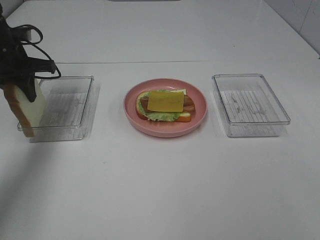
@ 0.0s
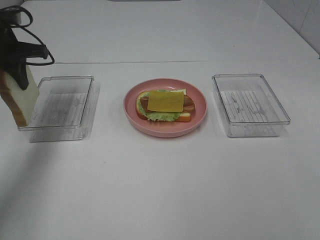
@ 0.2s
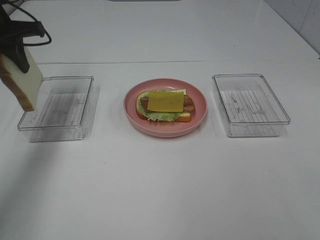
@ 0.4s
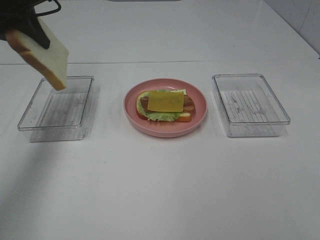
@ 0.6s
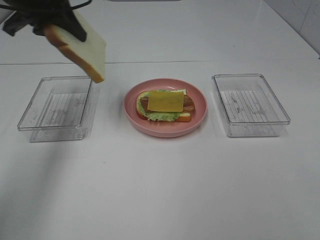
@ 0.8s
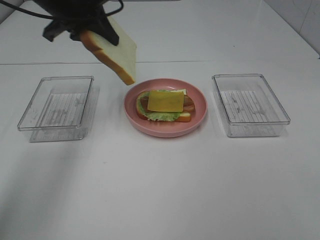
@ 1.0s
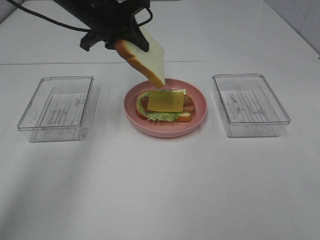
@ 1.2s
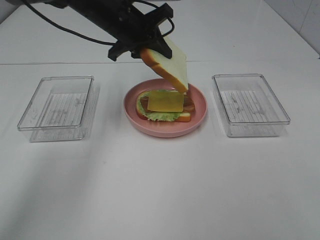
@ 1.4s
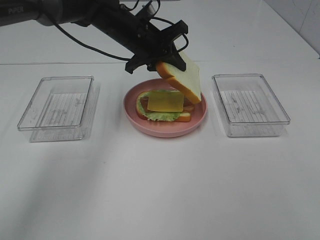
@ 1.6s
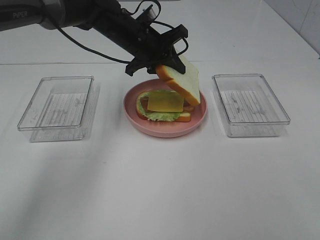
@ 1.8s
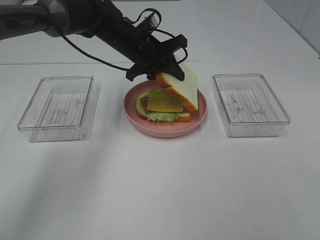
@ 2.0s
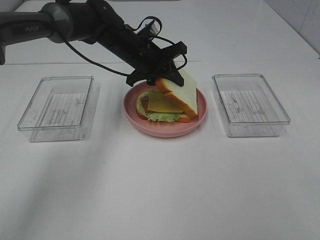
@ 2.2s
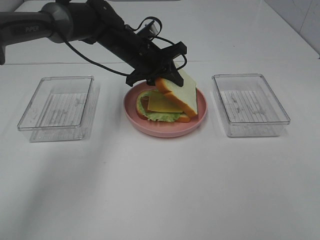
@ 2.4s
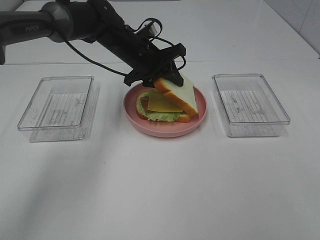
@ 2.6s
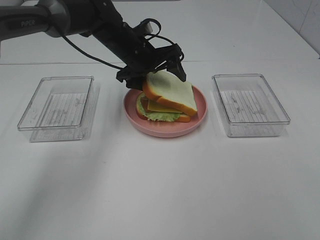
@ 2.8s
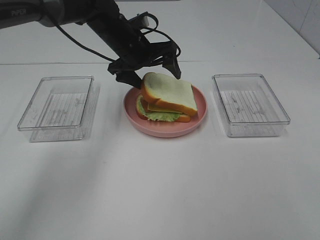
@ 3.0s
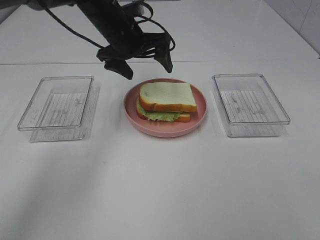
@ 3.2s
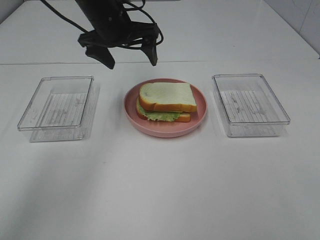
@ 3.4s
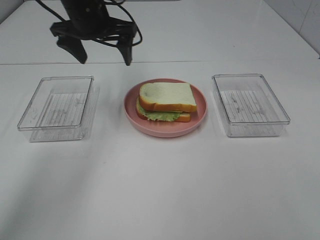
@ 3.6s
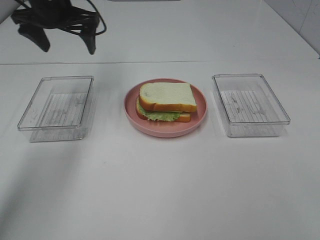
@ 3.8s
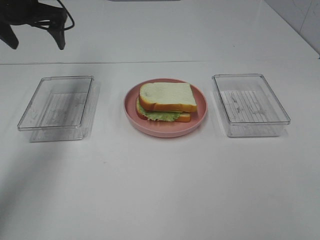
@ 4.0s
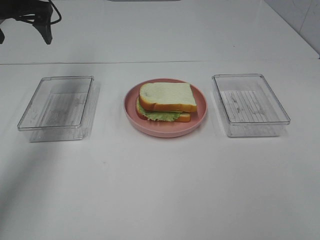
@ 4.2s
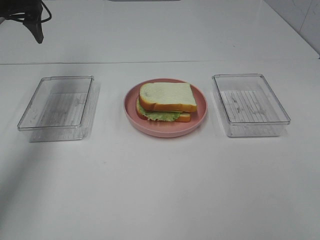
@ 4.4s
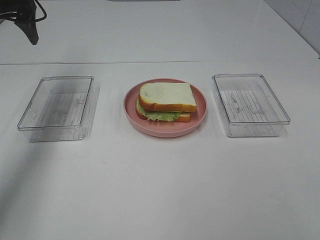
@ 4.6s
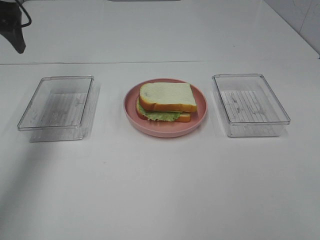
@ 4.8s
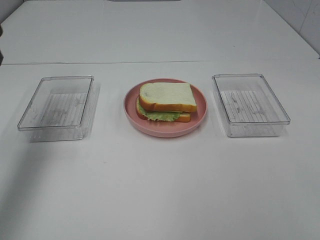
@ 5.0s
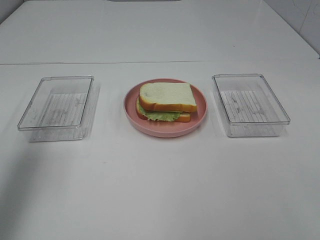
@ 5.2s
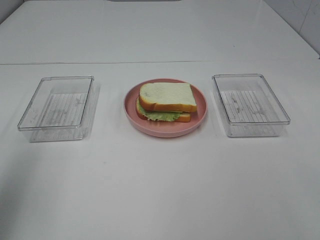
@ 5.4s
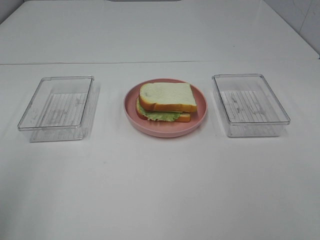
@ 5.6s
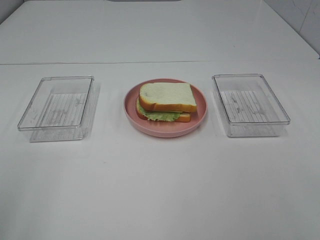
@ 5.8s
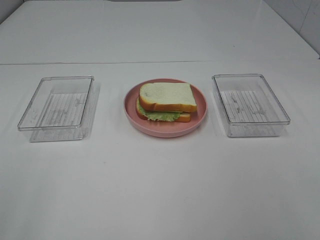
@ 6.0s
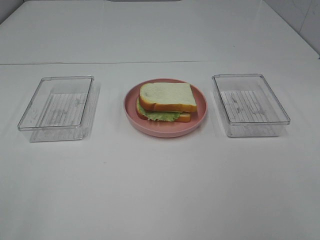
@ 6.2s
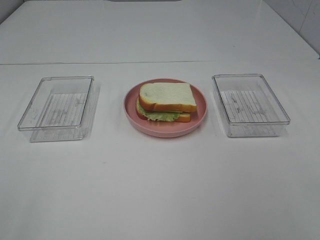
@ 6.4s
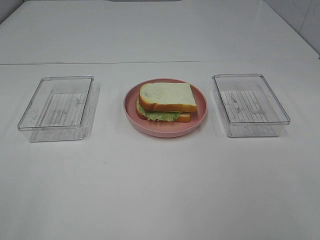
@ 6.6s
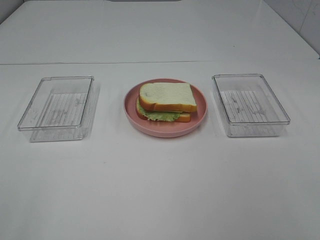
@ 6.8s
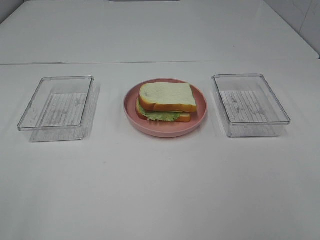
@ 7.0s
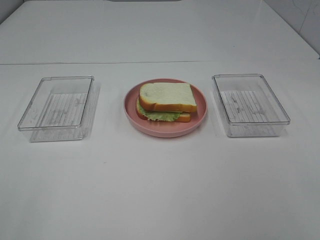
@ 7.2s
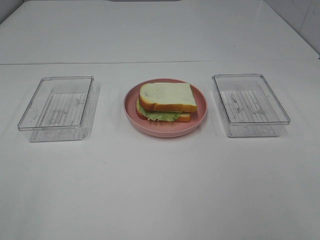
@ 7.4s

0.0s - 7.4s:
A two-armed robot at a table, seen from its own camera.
Task of the whole recording: Make sandwiches.
Step, 0.0s - 3.2s: Left hand:place bacon on bacon.
0.0s - 1.4s: The left gripper moves to the right, roughly 20 cm.
1.4s - 3.0s: The left gripper opens.
3.0s - 4.4s: The left gripper moves to the left and upward, approximately 25 cm.
4.4s - 6.0s: The left gripper moves backward, about 50 cm.

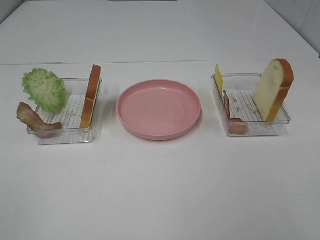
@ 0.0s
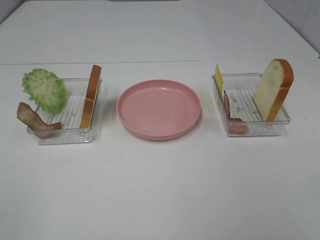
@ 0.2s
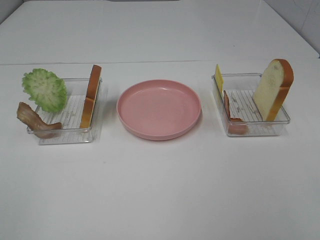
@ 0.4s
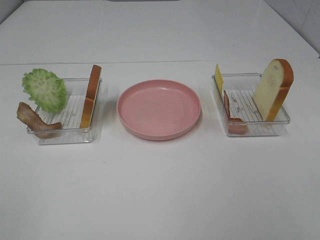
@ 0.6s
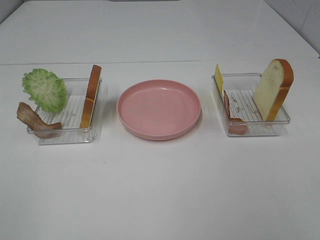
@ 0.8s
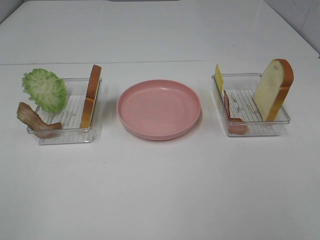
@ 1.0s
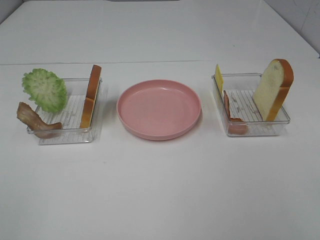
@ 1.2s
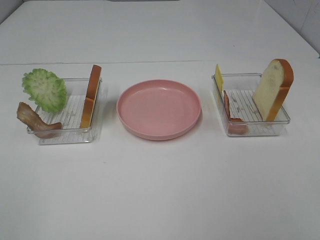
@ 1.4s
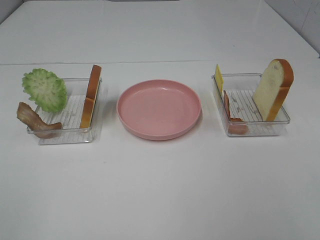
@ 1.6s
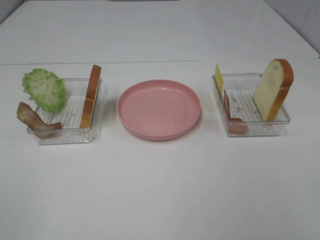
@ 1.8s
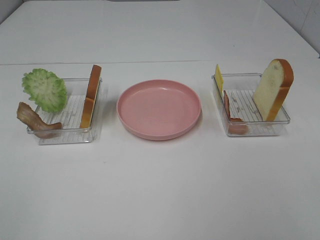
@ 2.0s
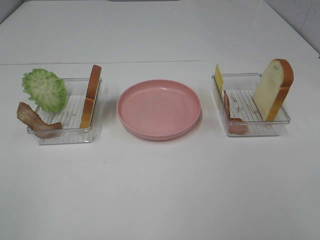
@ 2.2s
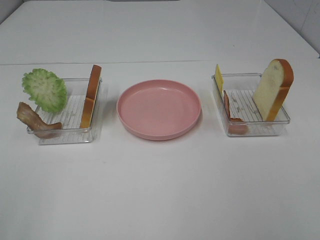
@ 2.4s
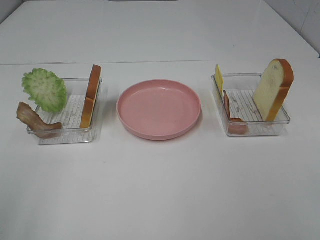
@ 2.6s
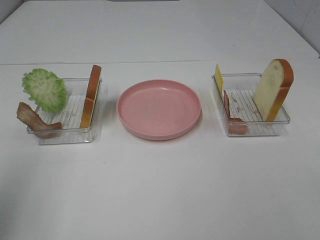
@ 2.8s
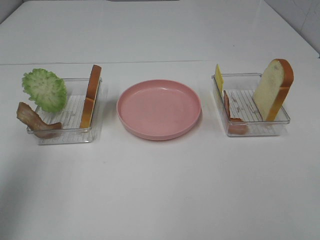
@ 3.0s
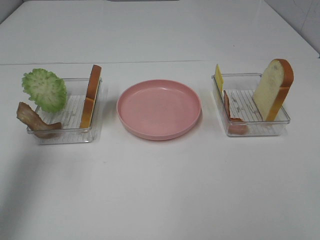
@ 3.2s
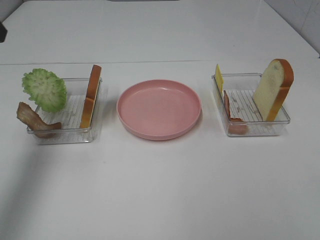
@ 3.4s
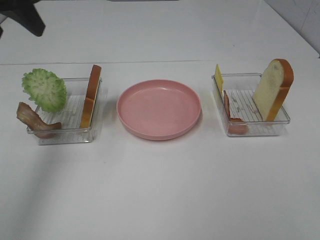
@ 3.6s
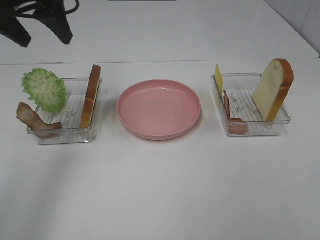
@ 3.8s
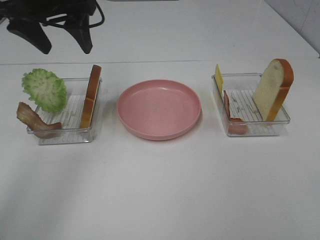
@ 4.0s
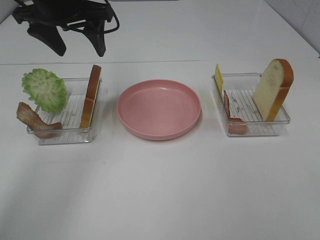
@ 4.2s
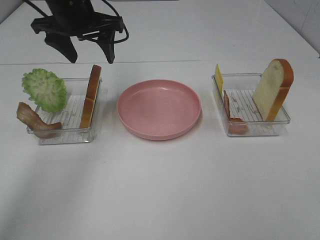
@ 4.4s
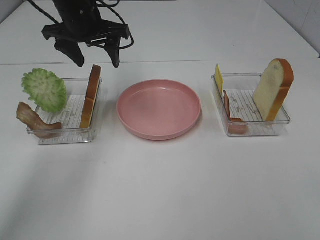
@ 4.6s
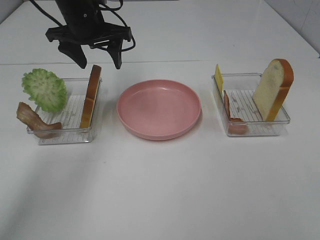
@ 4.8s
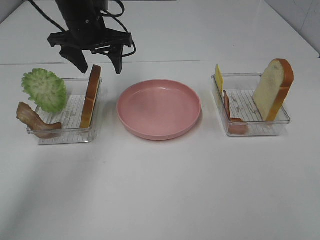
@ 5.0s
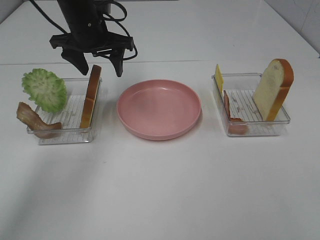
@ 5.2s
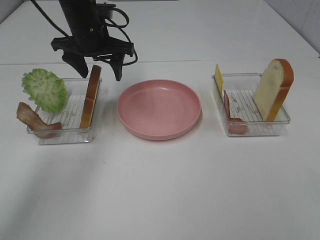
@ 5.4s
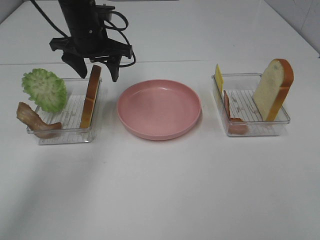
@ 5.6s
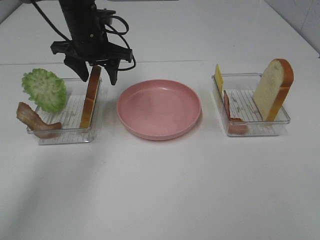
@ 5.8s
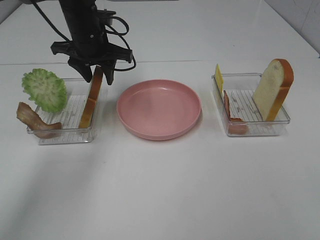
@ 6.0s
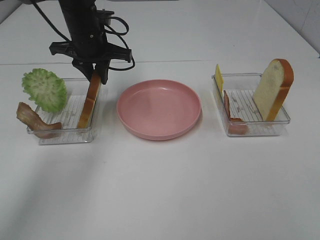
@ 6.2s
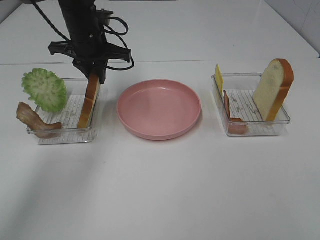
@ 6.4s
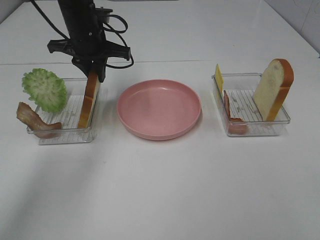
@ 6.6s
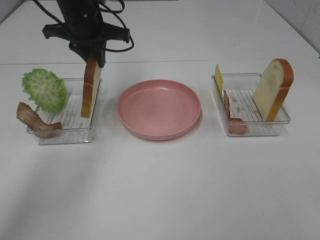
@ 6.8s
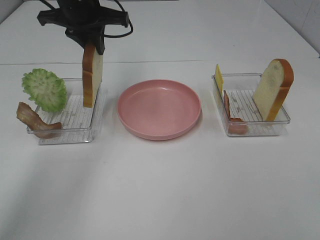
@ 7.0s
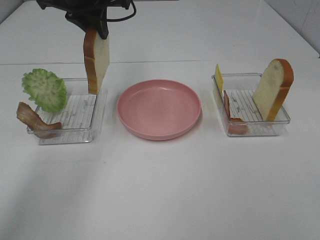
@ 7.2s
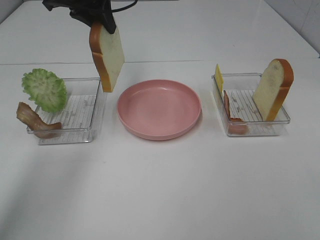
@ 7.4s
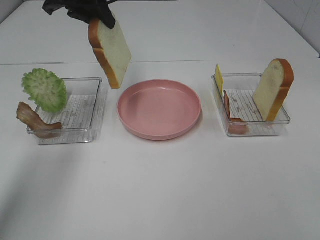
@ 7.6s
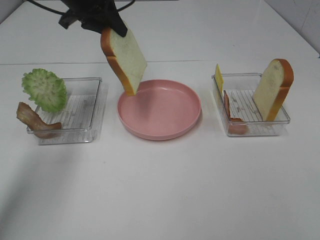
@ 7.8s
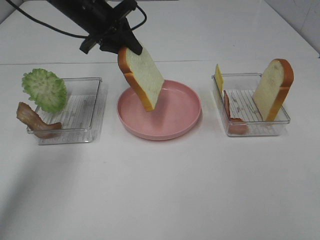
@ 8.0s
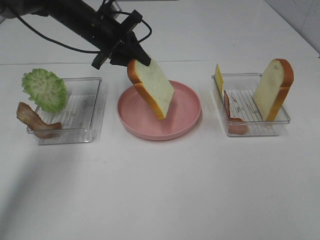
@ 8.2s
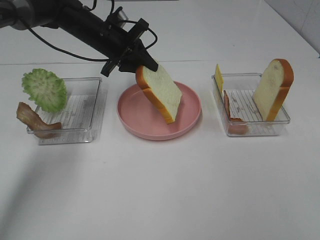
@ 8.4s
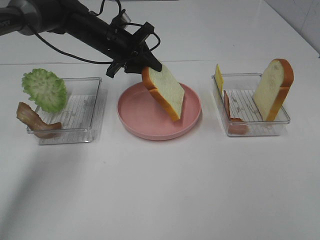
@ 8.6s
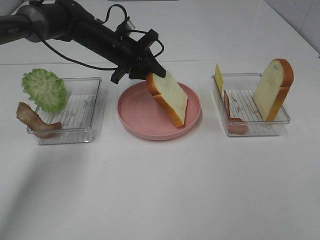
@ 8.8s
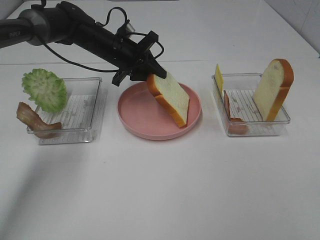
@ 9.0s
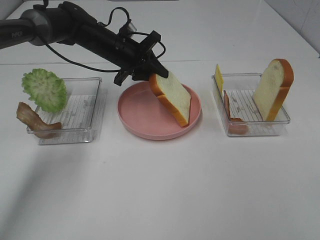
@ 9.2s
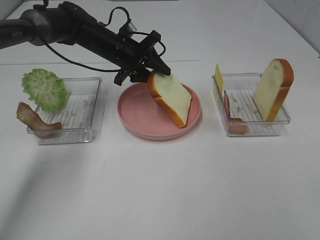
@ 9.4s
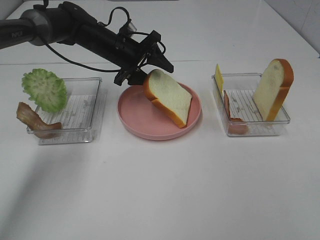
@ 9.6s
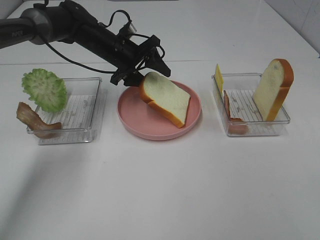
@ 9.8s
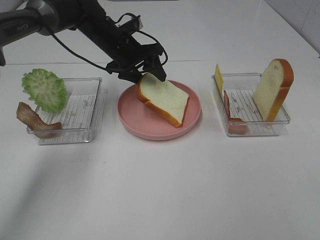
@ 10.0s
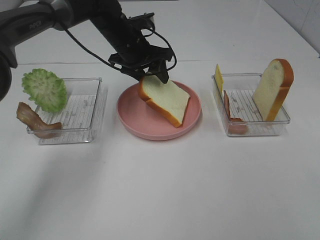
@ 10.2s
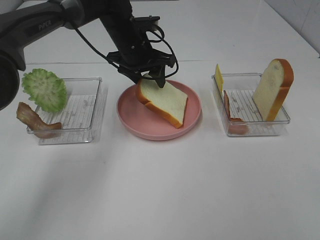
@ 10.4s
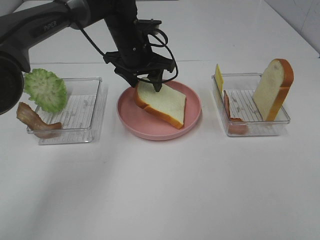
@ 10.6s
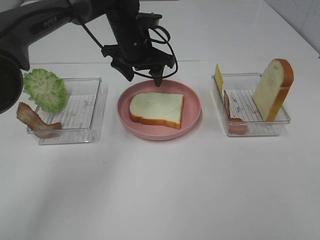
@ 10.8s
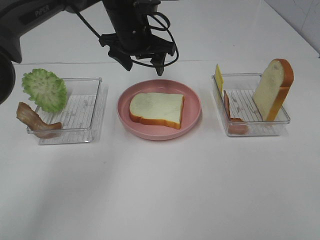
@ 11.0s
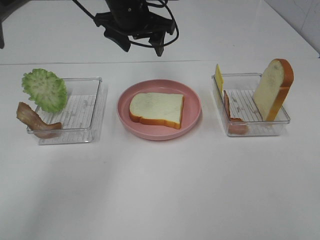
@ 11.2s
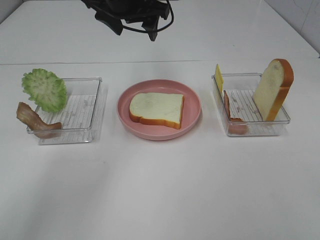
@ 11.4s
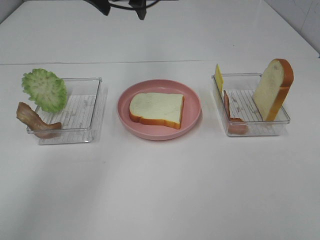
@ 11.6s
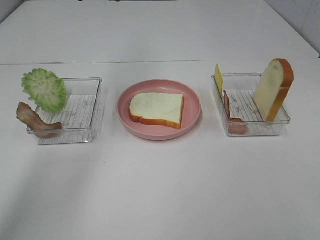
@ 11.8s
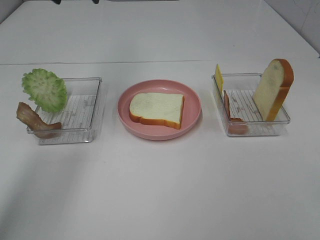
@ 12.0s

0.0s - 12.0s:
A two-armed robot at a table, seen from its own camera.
Task of the whole recording: Make sandwiches.
Step, 0.0s - 6.4s: Left hand:grab the bread slice.
Step, 6.6s - 10.8s: Left hand:place the bread slice on the plate.
0.0s - 1.6s: The two grippers keep their place.
1.6s - 3.0s: The left gripper heads forward, covering roughly 20 cm.
3.0s - 4.4s: The left gripper is displaced forward and to the right by approximately 30 cm.
4.4s - 6.0s: The left gripper heads downward, covering roughly 5 cm.
6.0s - 7.6s: The left gripper shifts some 10 cm upward.
7.6s - 9.0s: The left gripper shifts about 15 cm downward.
9.0s - 10.4s: The left gripper moves about 5 cm, and opens its fingers.
10.4s - 12.0s: The left gripper is displaced upward and to the left by about 20 cm.

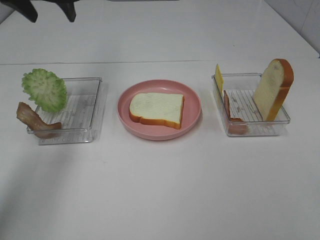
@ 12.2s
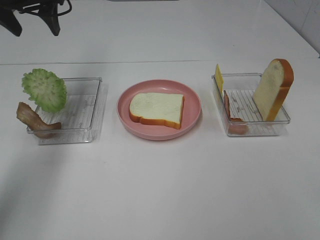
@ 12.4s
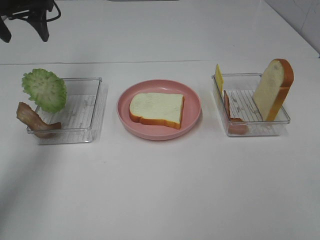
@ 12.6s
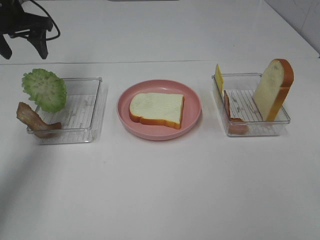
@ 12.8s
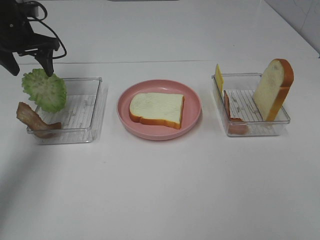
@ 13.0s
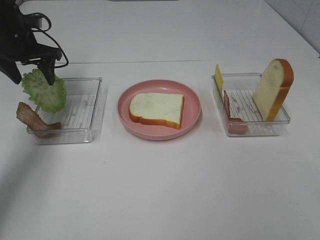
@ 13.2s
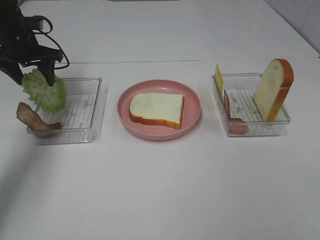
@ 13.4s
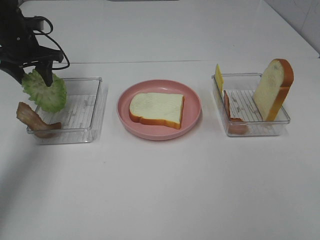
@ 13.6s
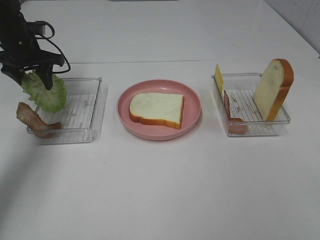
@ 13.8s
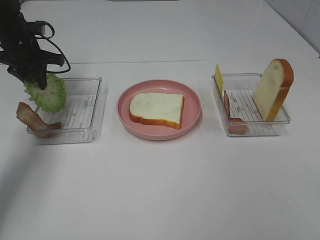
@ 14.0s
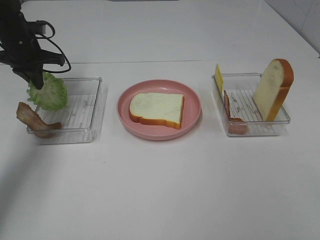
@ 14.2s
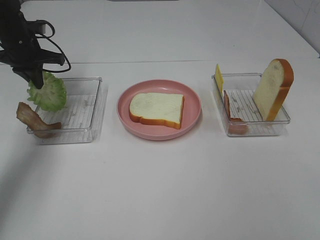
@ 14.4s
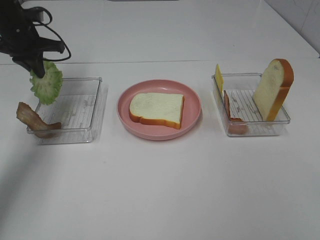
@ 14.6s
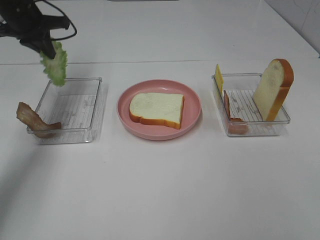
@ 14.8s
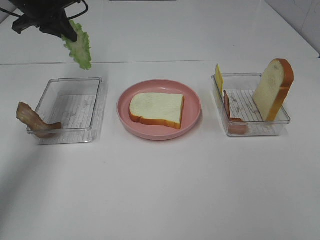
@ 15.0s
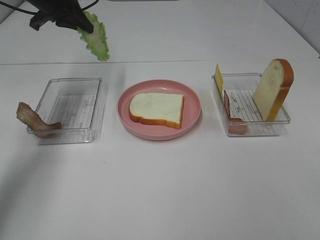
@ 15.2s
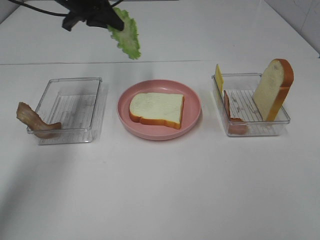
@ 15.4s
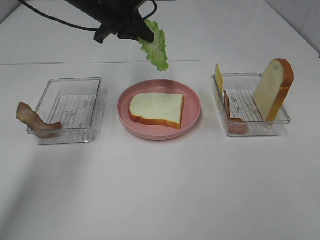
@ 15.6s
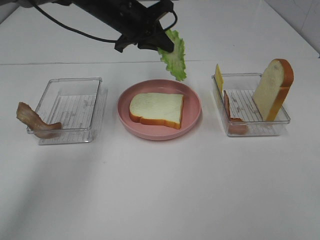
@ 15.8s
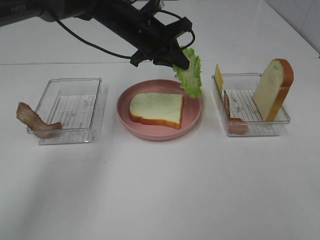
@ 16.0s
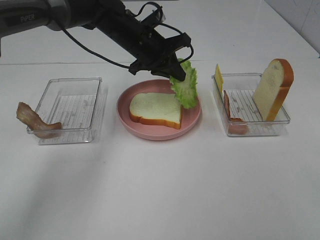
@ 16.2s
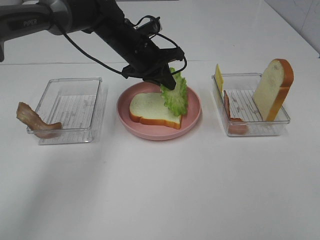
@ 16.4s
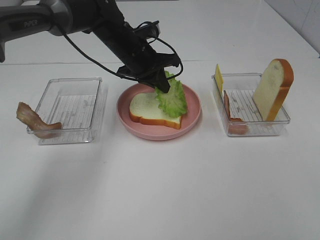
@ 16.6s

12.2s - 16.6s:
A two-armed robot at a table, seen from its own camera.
Task of the whole recording: Make sandwiches.
Step, 12.2s - 14.0s: Left hand:grab the lettuce slice.
12.2s - 13.6s: The left gripper shifts roughly 15 cm downward and to the left.
13.6s - 15.2s: The left gripper is displaced upward and to the right by approximately 10 cm, and closes its fingers.
15.2s - 16.6s: The left gripper goes approximately 20 cm to the right and downward.
